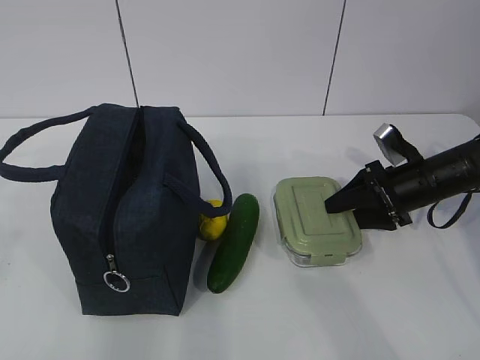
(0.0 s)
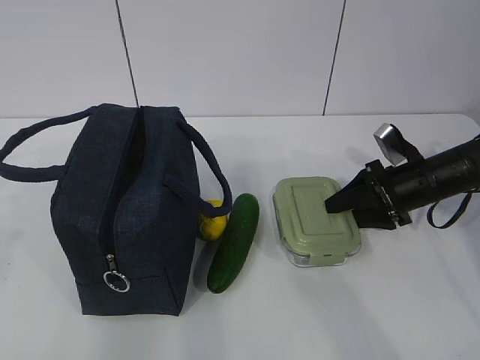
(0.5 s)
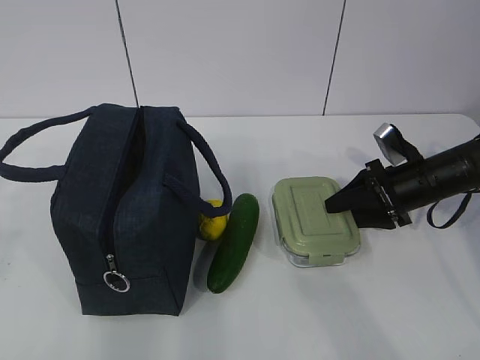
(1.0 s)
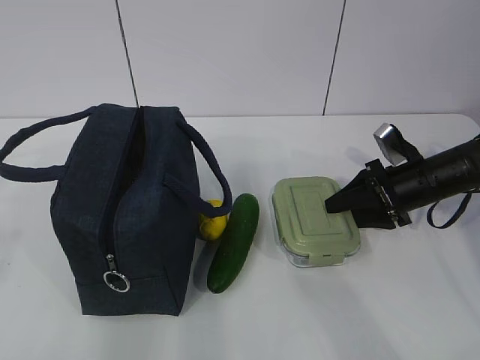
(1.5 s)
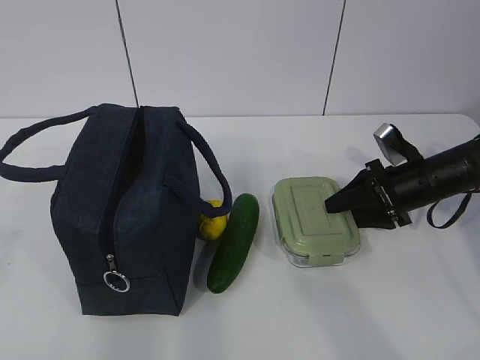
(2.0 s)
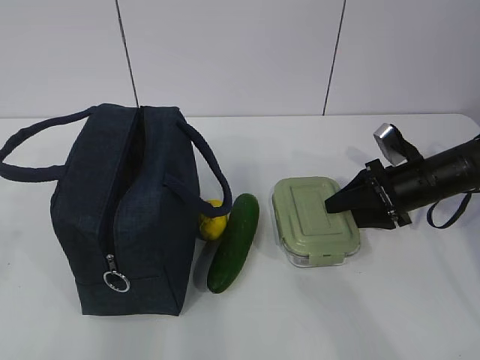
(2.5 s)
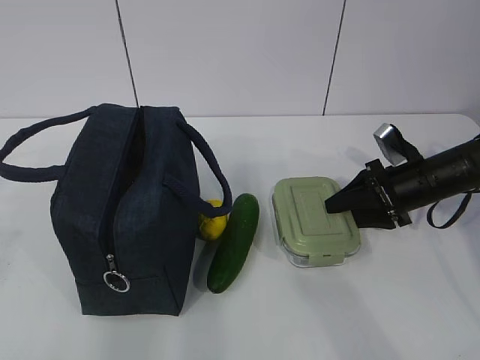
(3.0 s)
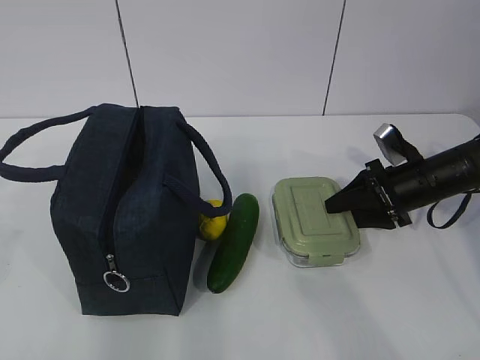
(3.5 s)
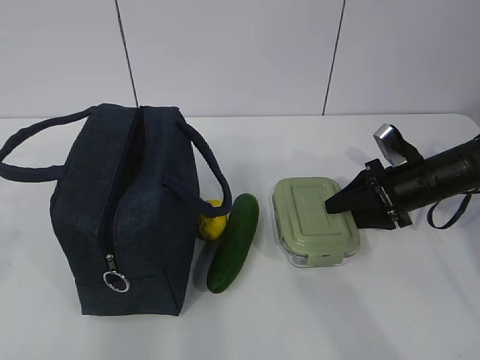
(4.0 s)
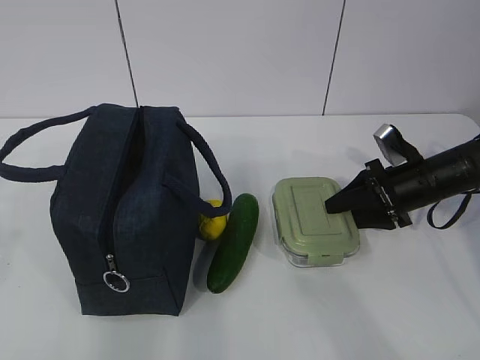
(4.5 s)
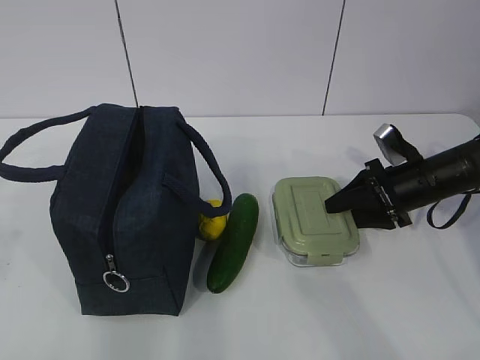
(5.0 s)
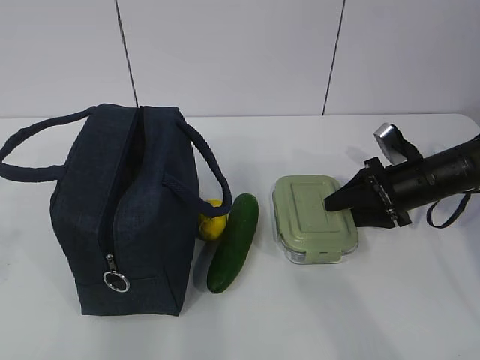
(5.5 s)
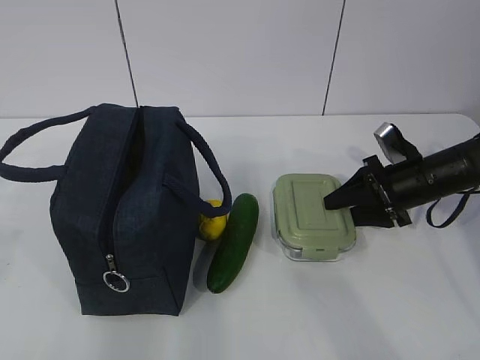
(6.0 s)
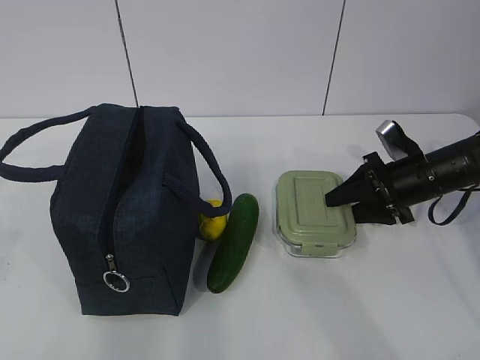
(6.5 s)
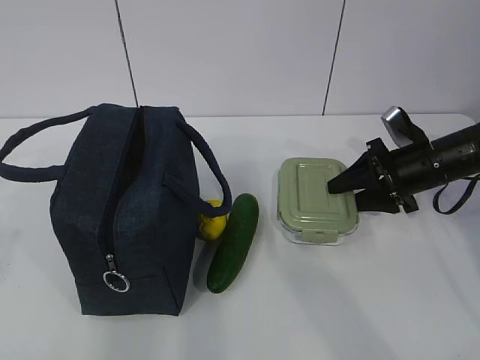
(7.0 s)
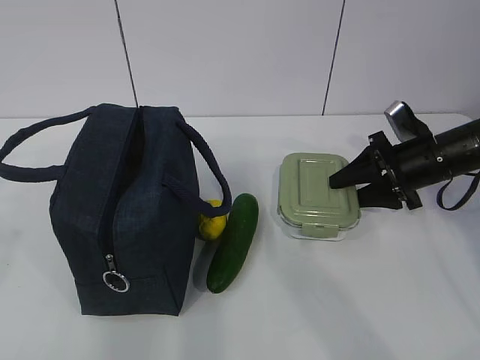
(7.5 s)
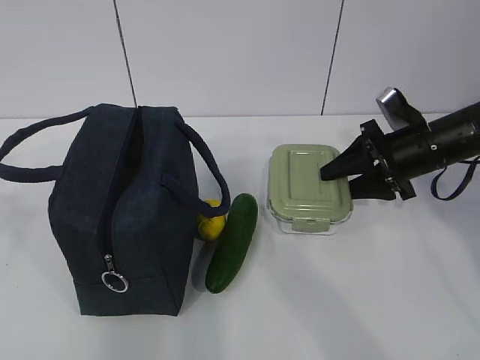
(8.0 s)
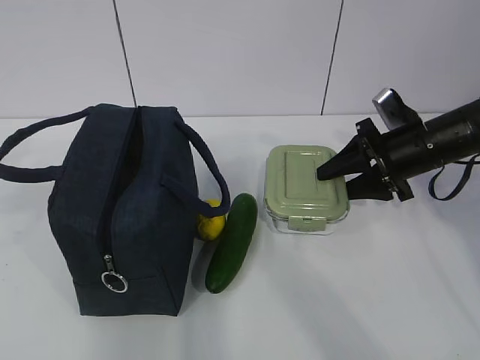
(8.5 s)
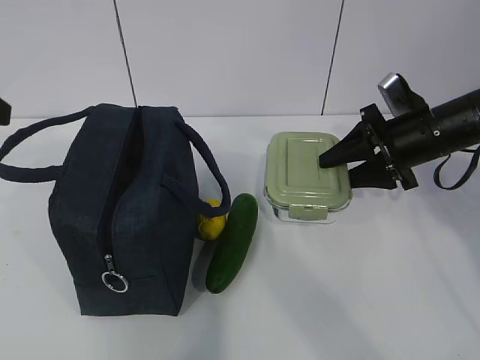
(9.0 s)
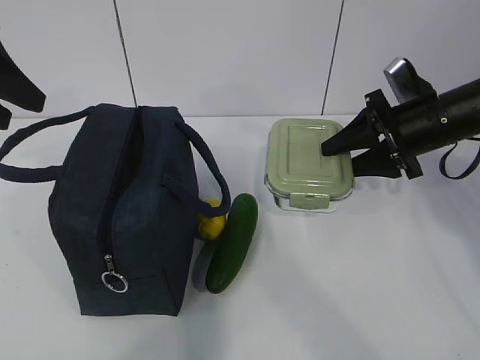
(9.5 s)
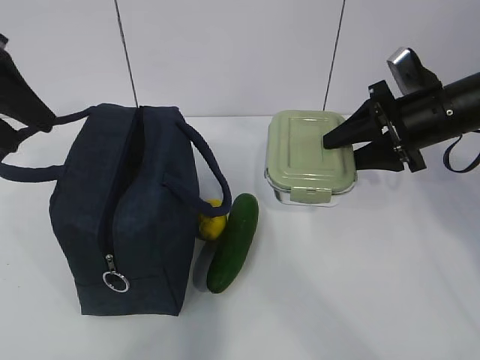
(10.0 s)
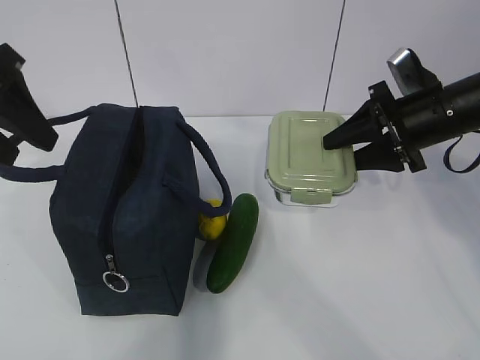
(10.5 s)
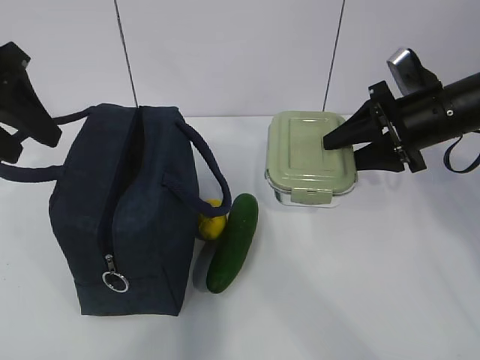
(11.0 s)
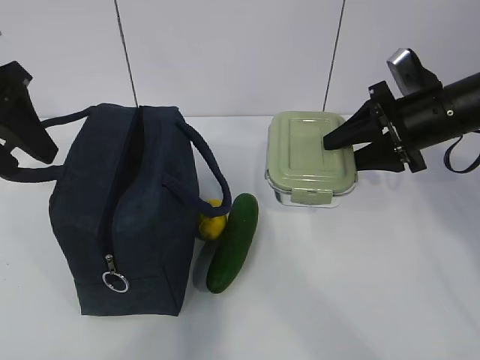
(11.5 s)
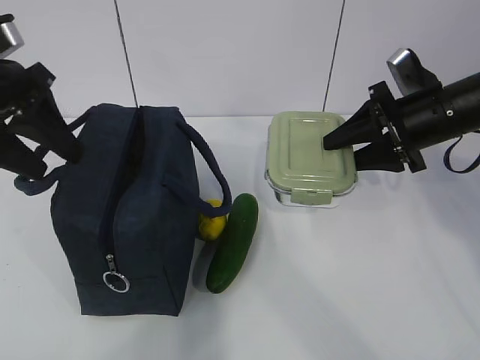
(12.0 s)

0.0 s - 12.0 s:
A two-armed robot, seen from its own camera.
Step, 3.0 s - 10.5 s: Grab the lunch bag with your left hand.
0.0 s - 6.0 s: Neither gripper changes place.
6.0 s - 8.0 s: The right gripper shifts approximately 5 cm upward.
8.0 s - 10.0 s: The right gripper moves upward, roughly 5 cm; the left gripper shifts about 15 cm forward.
10.0 s - 12.0 s: The grippers make only small movements.

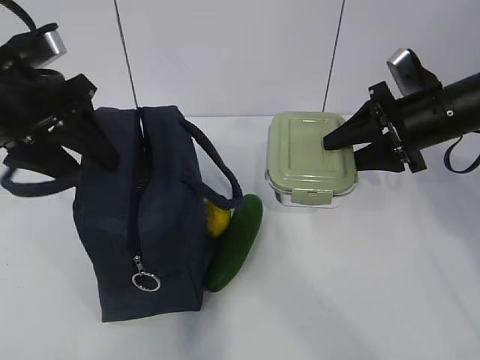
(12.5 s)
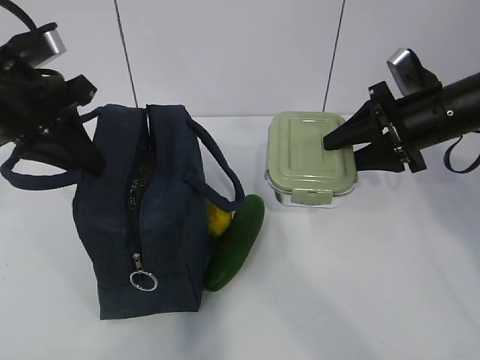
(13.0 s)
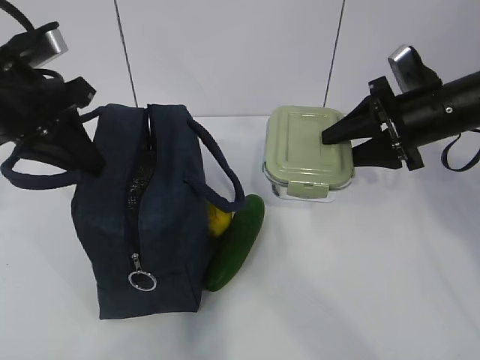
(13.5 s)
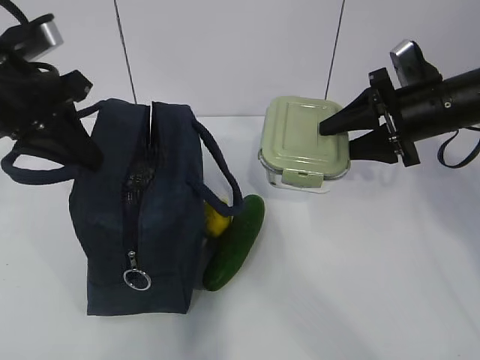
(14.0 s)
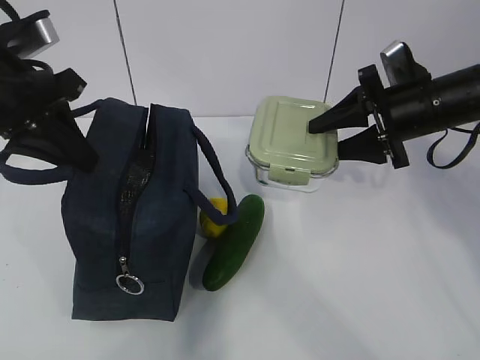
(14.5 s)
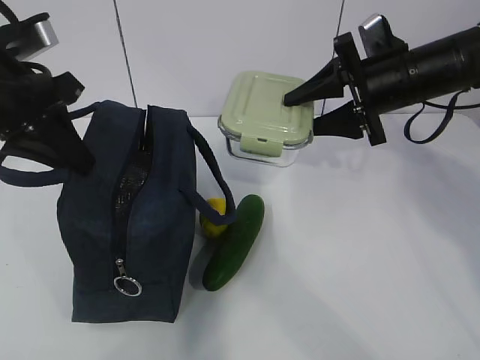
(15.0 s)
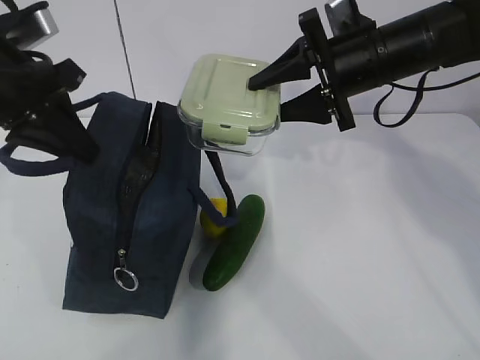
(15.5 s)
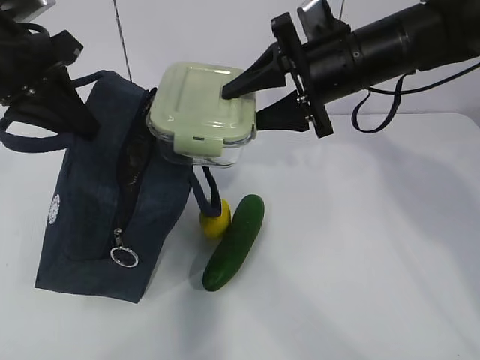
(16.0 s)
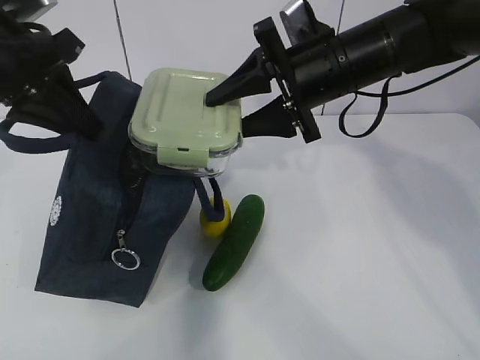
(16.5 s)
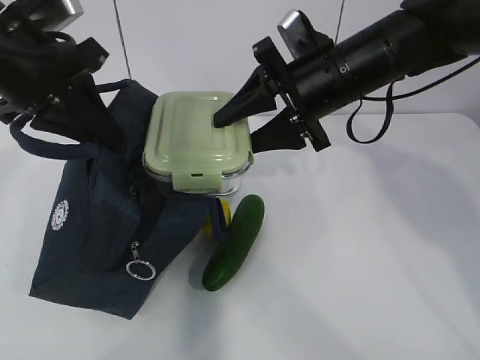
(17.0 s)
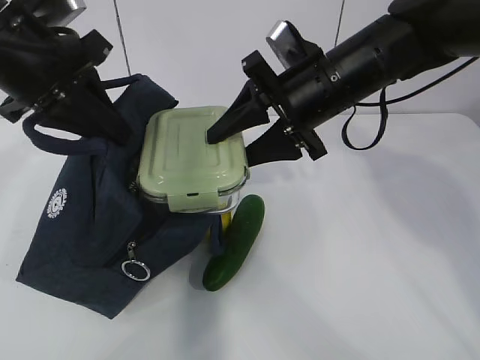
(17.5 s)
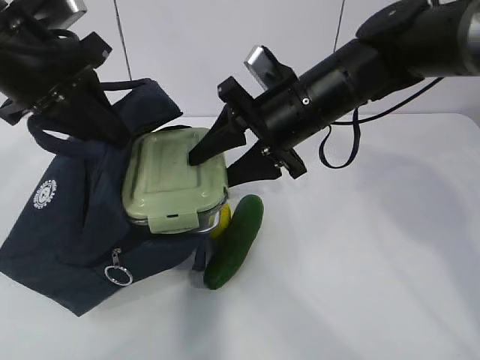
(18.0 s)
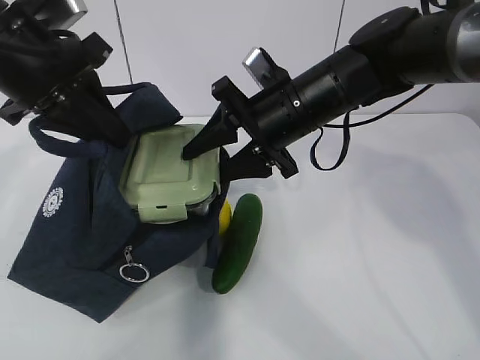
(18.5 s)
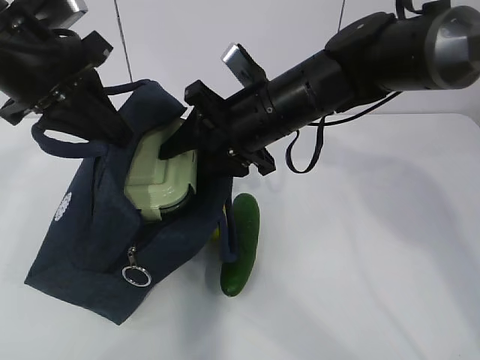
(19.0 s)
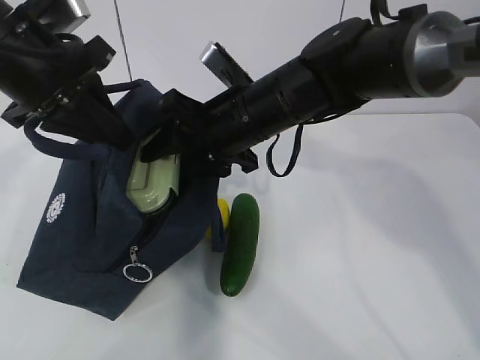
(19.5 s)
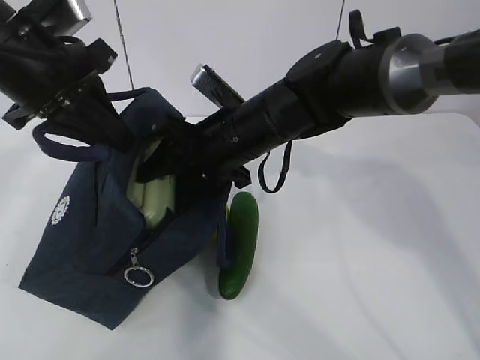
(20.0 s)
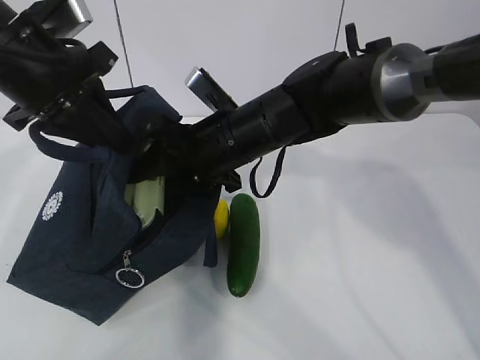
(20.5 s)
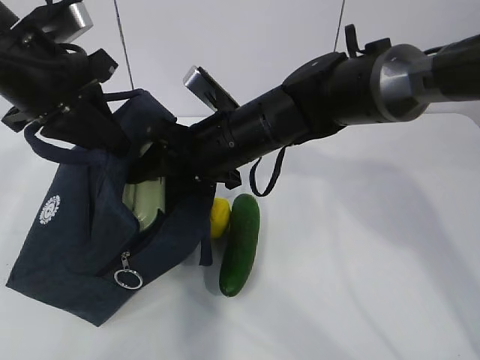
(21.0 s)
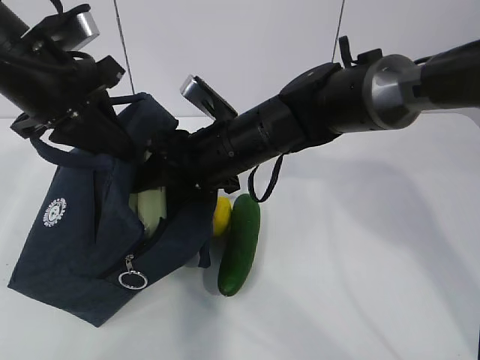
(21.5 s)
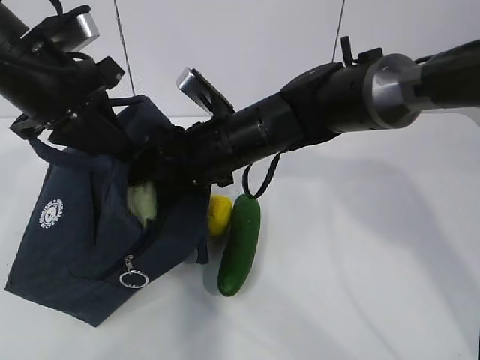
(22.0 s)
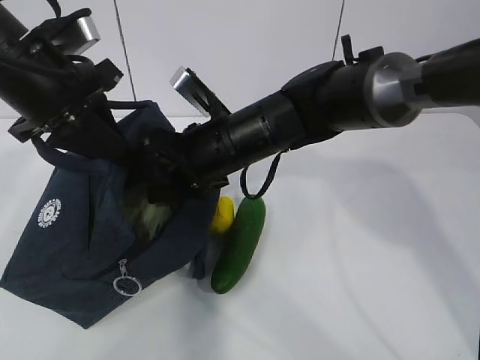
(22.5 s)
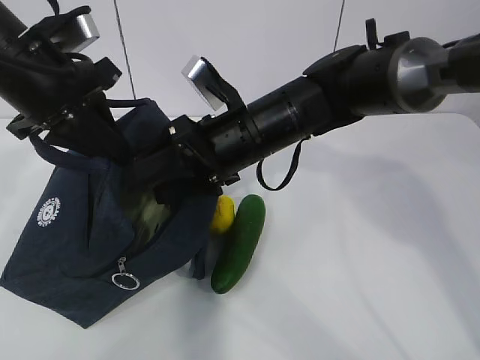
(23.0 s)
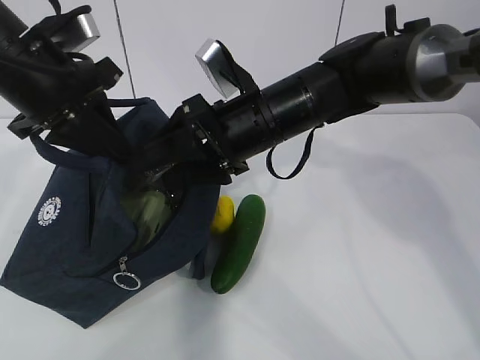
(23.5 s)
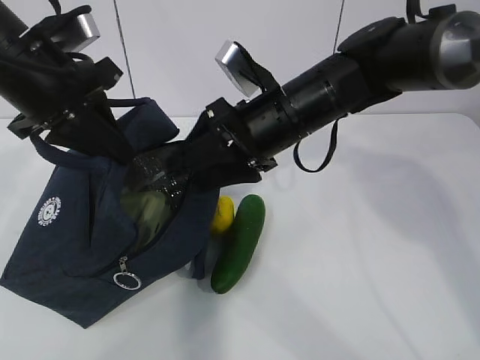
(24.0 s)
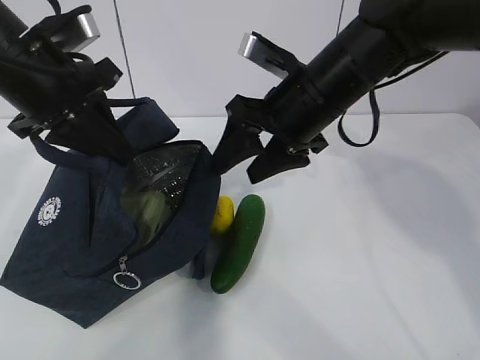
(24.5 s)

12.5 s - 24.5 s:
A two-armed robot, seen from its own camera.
Step, 12.5 s - 15.5 s: Place it into the bag with your right hand.
Step, 16.0 s - 23.5 s: Grab the cucumber with your right hand.
12.5 s - 14.5 s: The left gripper closes.
14.5 s - 16.5 s: The right gripper moves to the left and upward, some 15 cm.
16.5 s - 18.5 s: The right gripper moves about 5 cm.
18.5 s - 20.5 s: The right gripper shifts approximately 5 cm to the left.
20.5 s - 22.5 s: The grippers make only small movements.
22.5 s - 24.5 s: The right gripper travels to the right and upward by approximately 10 cm.

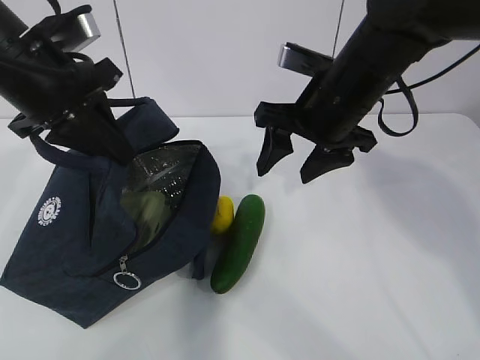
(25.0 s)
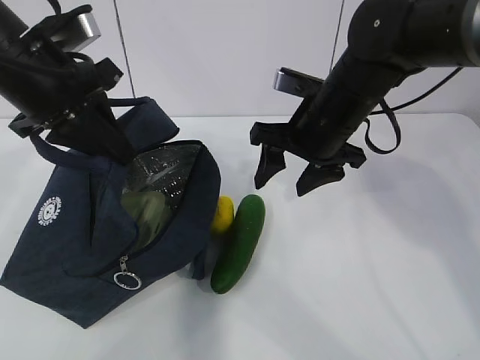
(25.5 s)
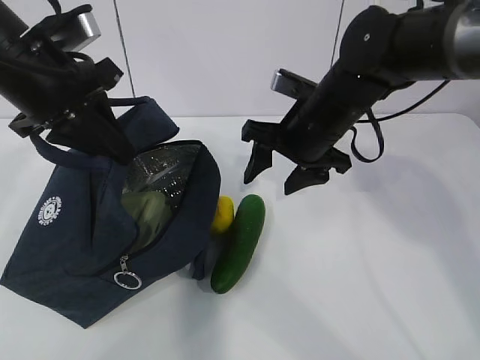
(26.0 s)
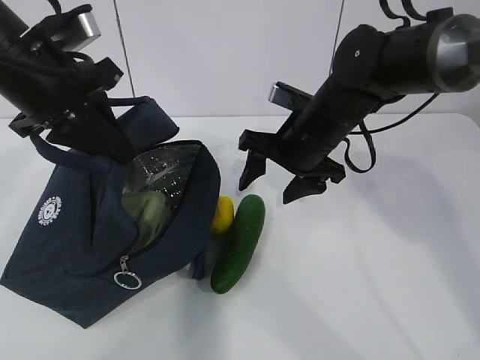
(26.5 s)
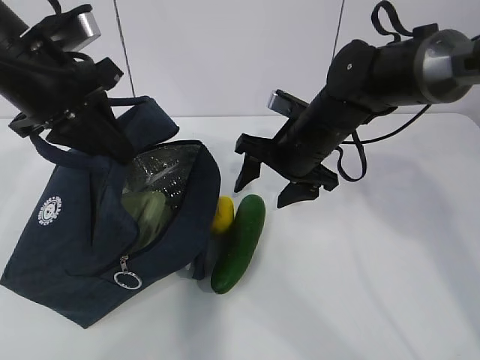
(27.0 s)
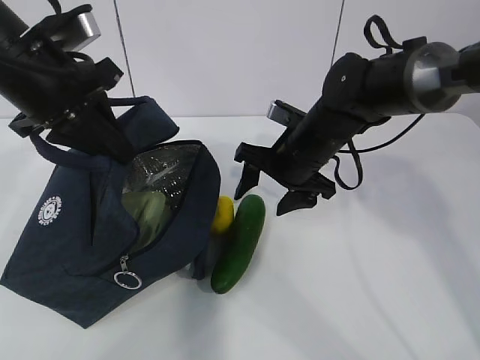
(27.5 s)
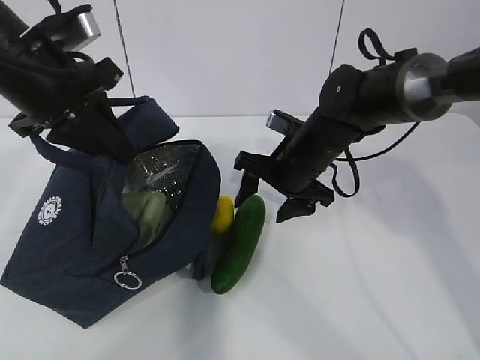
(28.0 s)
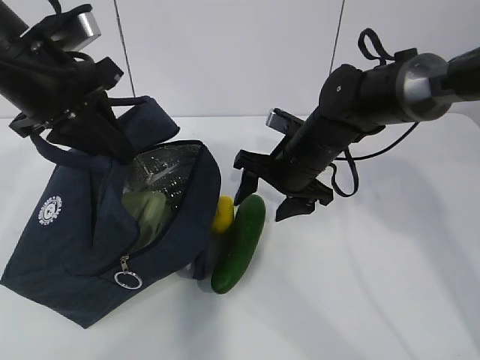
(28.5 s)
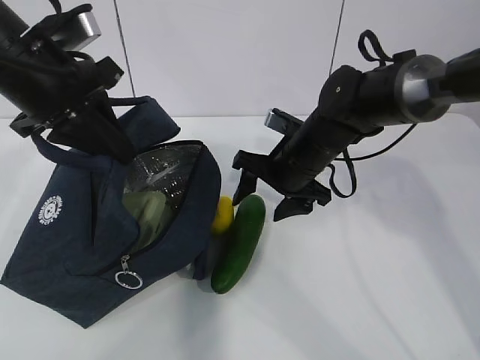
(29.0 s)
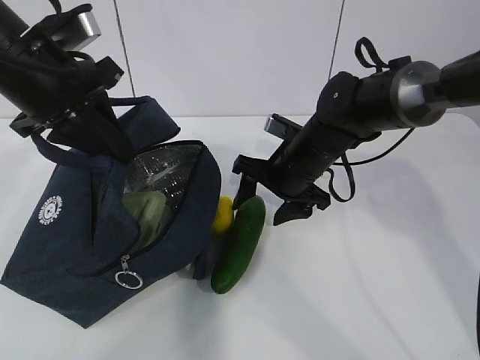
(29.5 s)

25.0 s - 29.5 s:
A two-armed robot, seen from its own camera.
Step, 25.0 s - 27.0 s: Place it into the bag with your right hand.
25.0 s - 27.0 s: The right gripper heads downward, covering some 10 cm.
27.0 s - 29.5 s: There are only small adjustments of the grippers.
